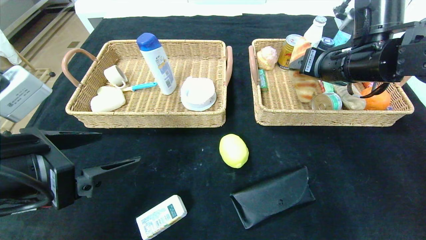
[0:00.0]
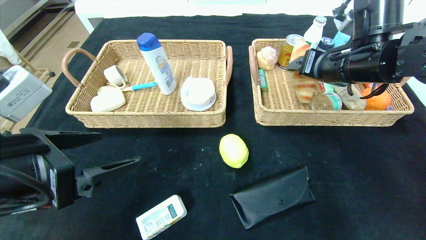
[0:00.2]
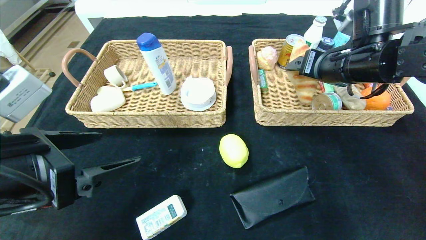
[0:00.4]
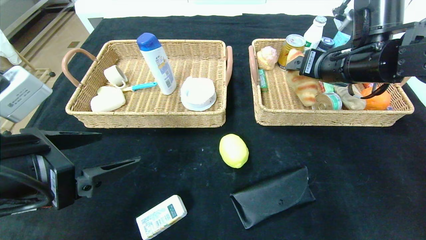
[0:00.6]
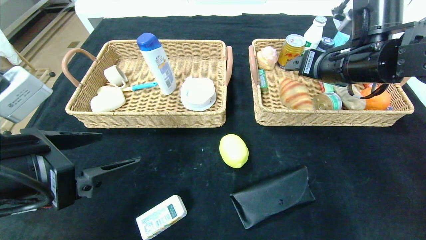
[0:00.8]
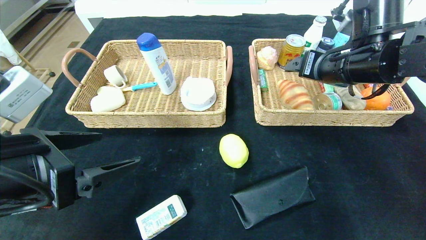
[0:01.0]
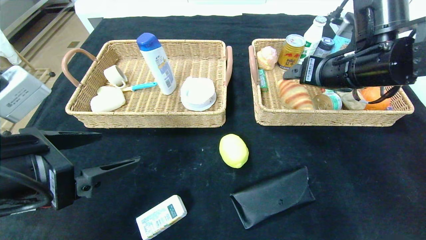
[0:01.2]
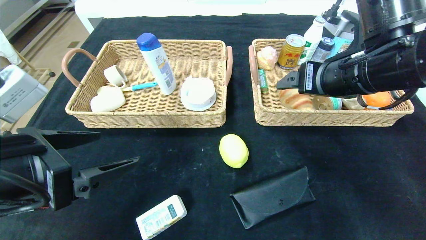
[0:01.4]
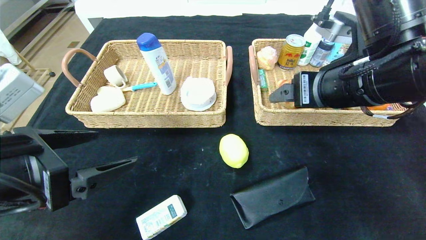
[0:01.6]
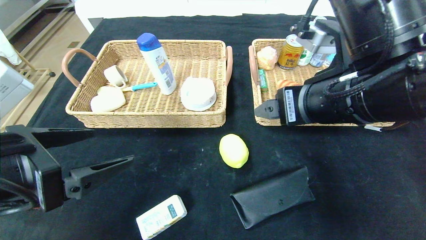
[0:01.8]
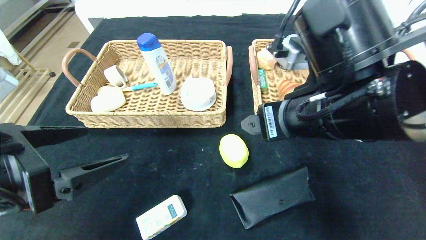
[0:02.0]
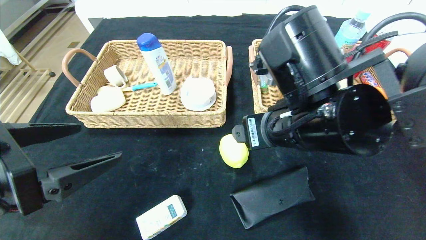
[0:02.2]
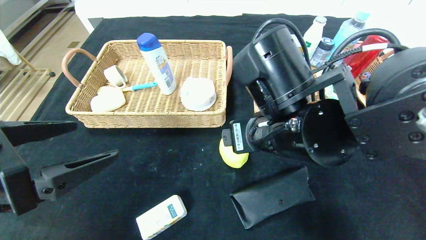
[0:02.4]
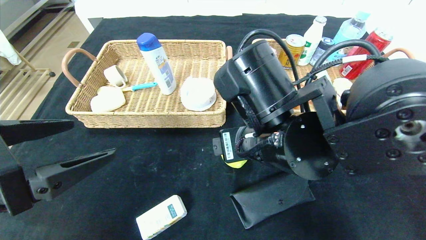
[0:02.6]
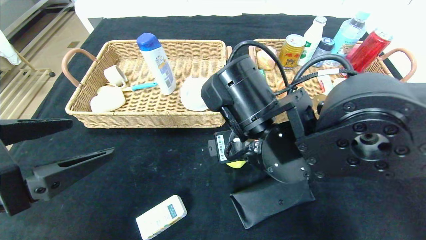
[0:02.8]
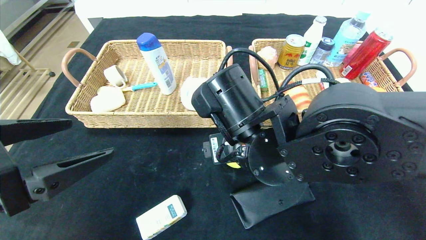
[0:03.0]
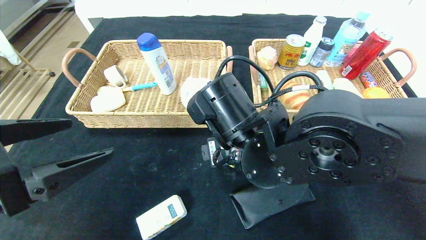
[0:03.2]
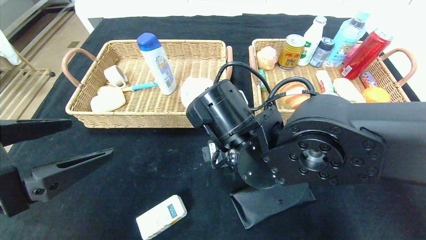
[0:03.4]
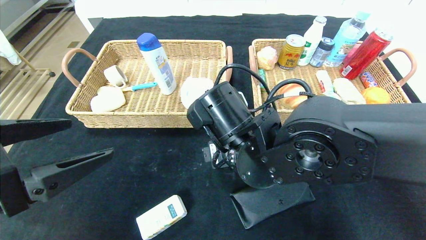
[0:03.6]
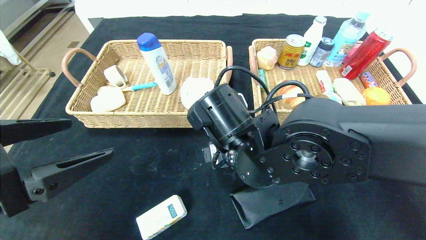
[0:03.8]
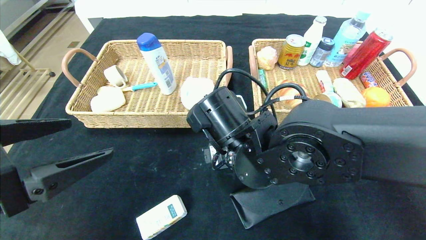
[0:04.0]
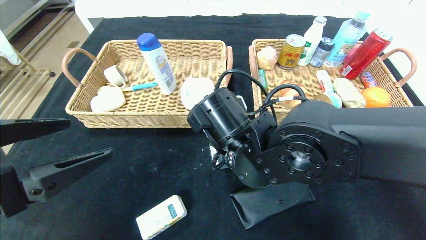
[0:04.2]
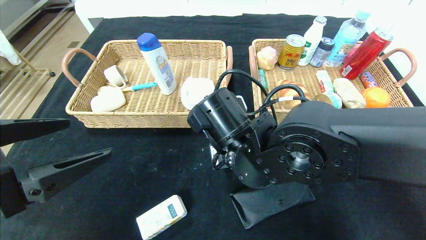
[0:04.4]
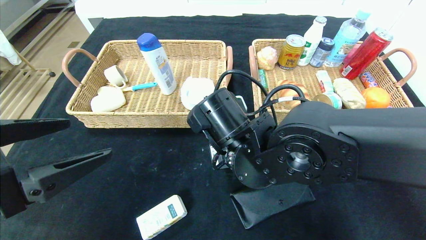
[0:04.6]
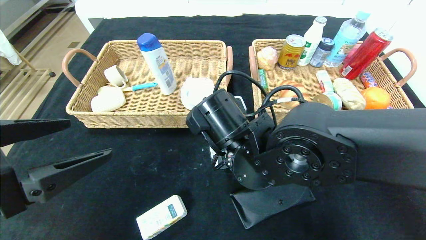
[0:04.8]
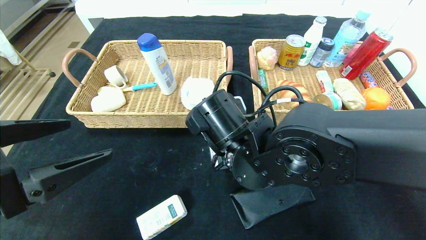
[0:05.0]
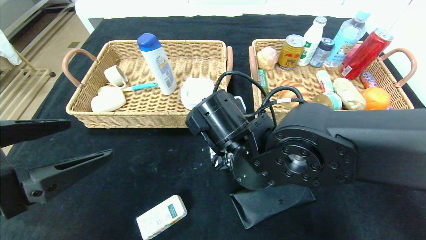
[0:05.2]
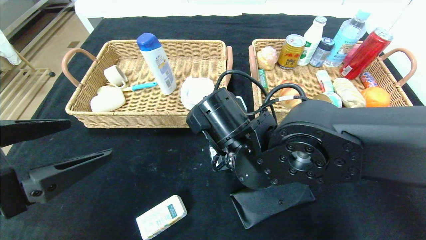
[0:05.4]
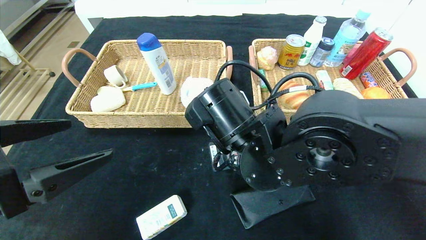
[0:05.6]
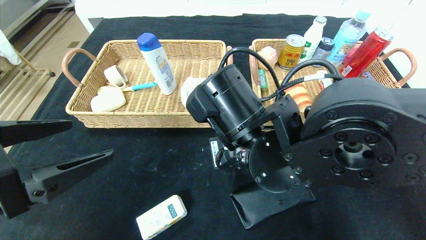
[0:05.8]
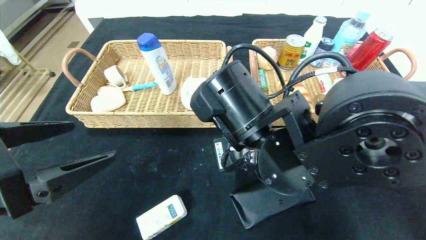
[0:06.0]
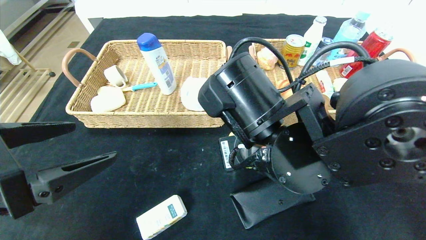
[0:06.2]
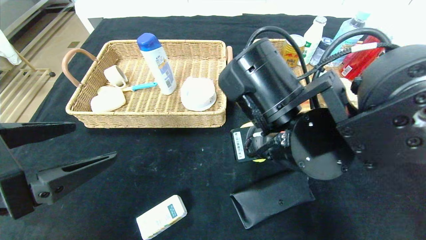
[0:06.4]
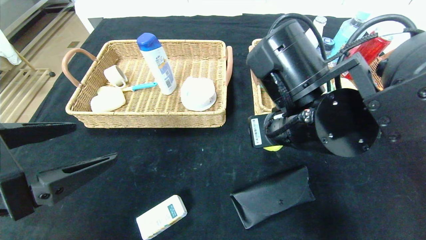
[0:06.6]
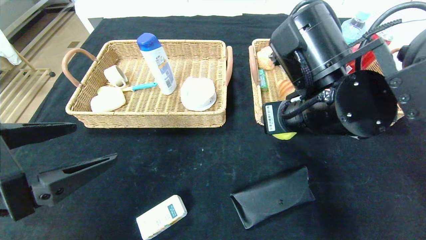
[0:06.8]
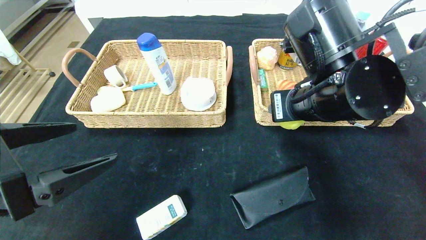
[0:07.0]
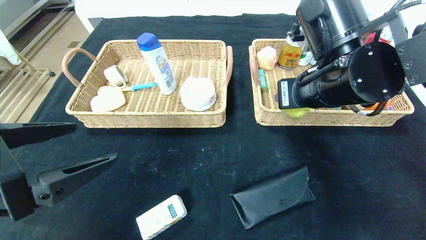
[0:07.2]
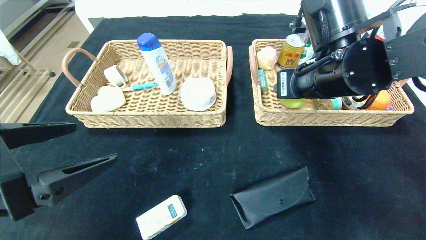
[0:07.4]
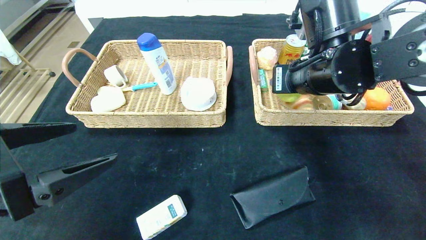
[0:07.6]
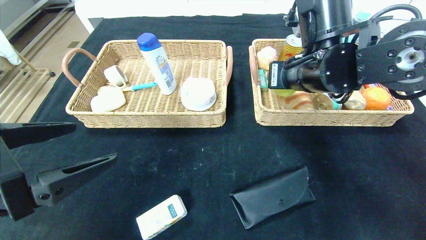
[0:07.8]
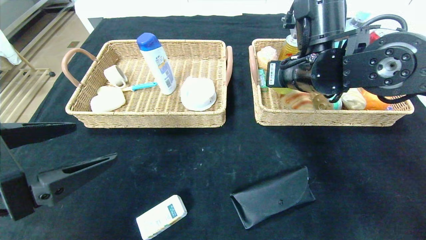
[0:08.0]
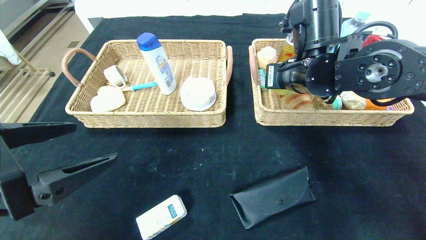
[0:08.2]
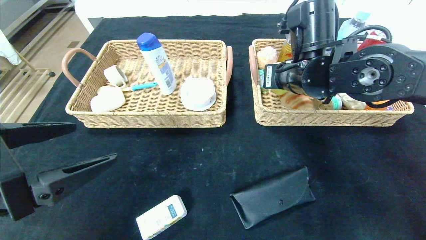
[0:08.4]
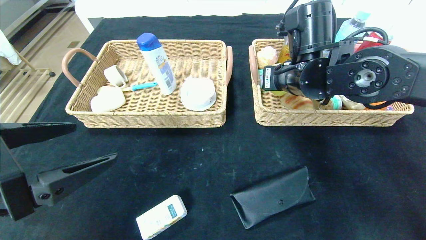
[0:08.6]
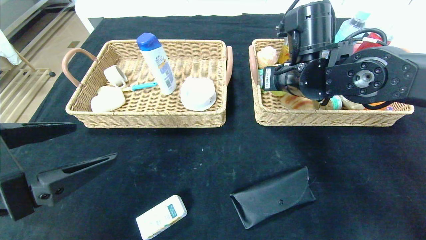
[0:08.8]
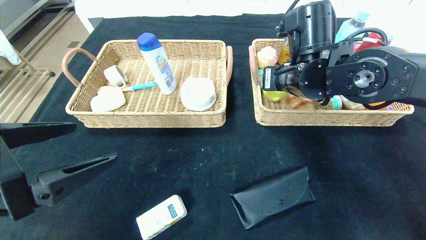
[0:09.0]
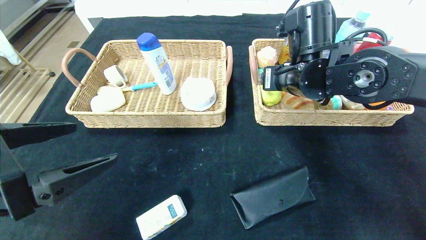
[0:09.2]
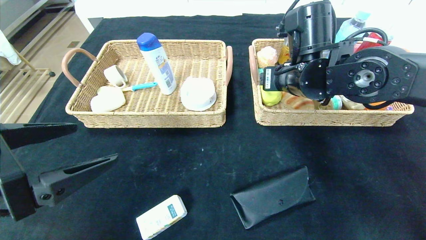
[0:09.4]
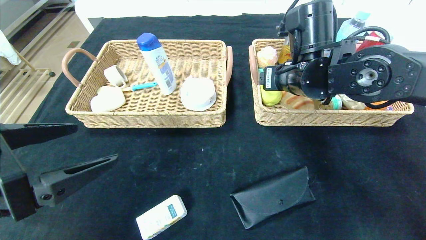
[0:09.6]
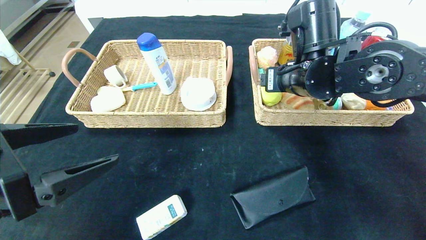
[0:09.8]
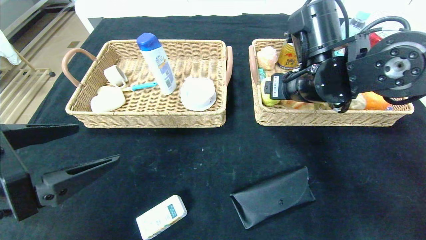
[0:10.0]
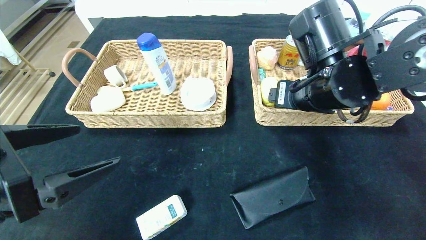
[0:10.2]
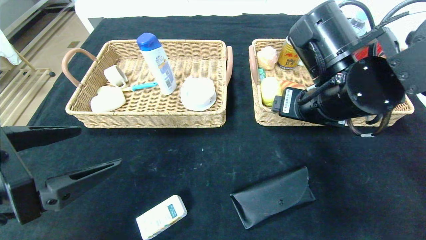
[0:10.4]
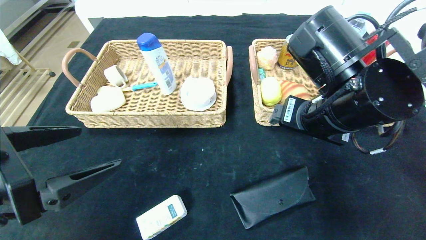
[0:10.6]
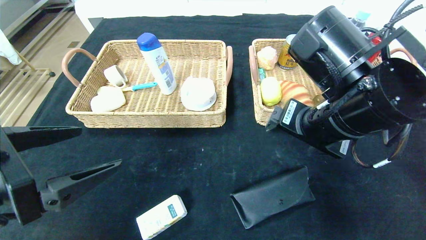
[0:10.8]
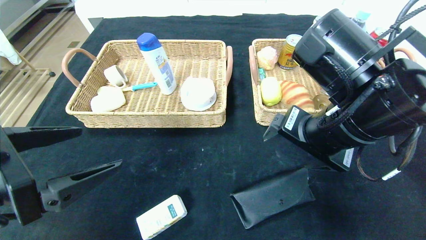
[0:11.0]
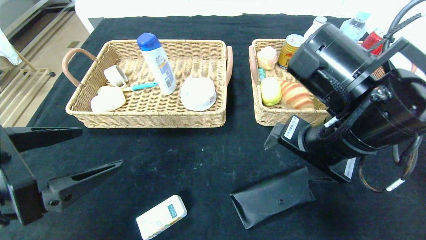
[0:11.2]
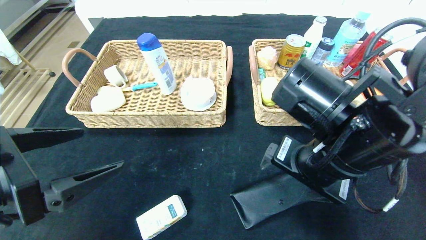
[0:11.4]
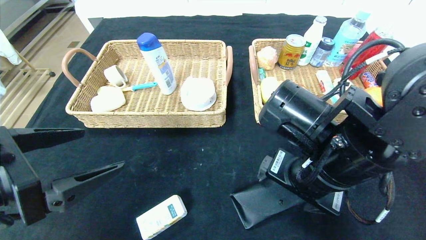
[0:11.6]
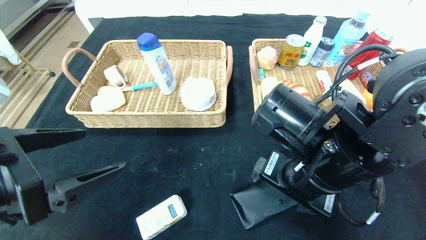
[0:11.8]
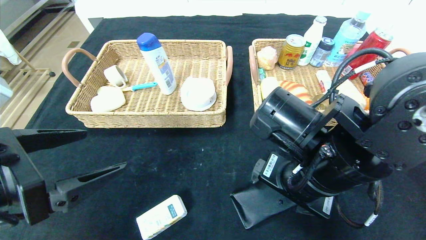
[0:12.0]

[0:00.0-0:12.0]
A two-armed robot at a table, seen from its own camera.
Step, 0:00.0 to 0:02.0: Pick up the croissant and put it in the right basket.
Step, 0:02.2 to 0:10.8: Pick up the lemon and put it in the right basket.
0:00.0 to 0:01.6: The right gripper moves backward and to the left, approximately 10 cm, and opens up.
0:01.6 to 0:03.0: The right gripper moves to the left and downward, approximately 15 cm.
0:03.0 to 0:04.4: The right gripper closes its fingers.
0:04.4 to 0:06.0: The right gripper shifts by roughly 5 cm.
0:06.0 to 0:07.6: The right gripper is displaced to the right, forward and upward by roughly 15 cm.
0:07.6 to 0:09.0: There are only small adjustments of the grippers.
0:09.0 to 0:10.4: The right gripper is displaced backward by about 10 cm, and opens its fingers.
0:10.4 to 0:12.0: The right gripper heads downward and backward, covering roughly 10 cm.

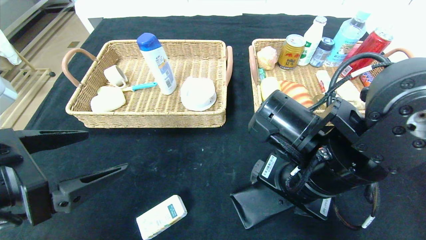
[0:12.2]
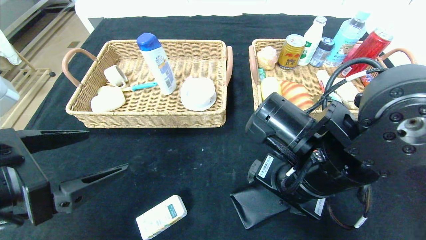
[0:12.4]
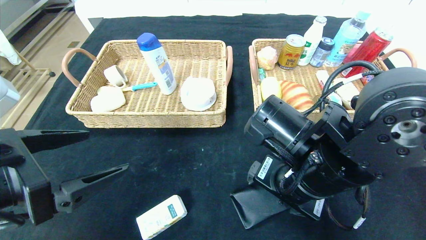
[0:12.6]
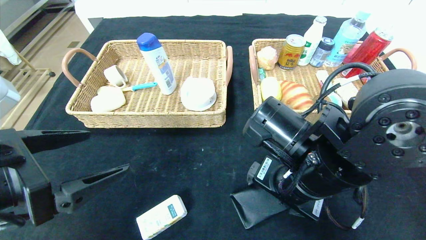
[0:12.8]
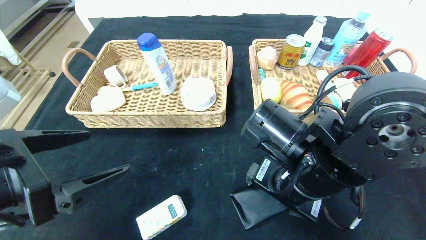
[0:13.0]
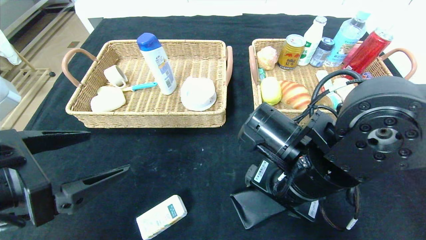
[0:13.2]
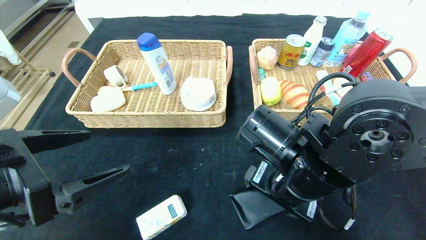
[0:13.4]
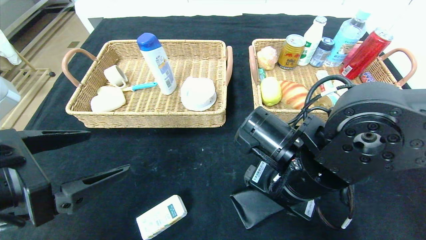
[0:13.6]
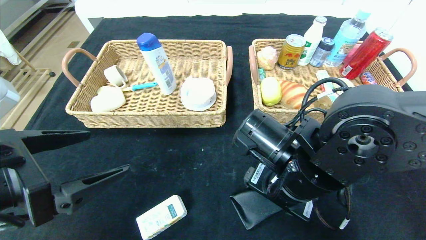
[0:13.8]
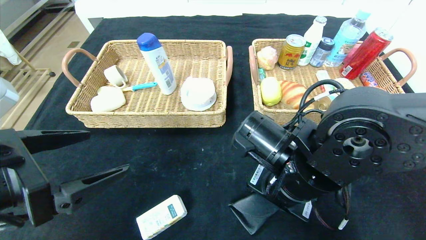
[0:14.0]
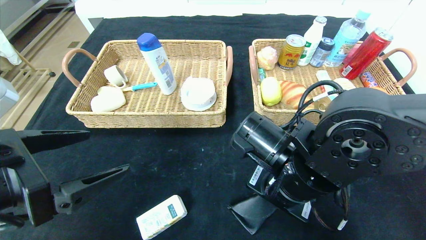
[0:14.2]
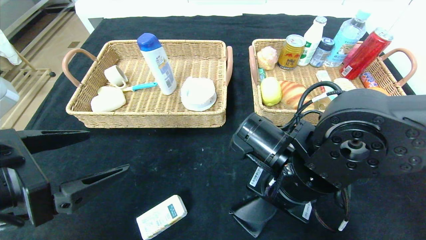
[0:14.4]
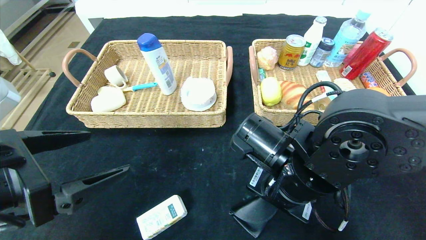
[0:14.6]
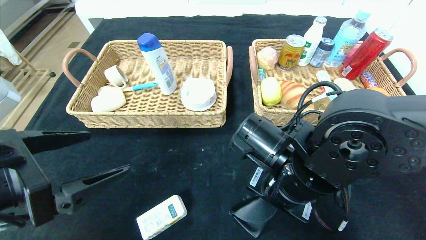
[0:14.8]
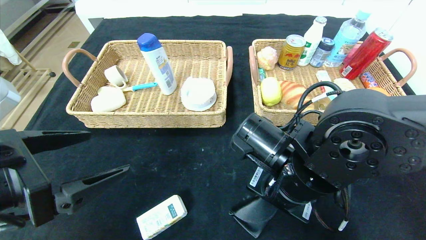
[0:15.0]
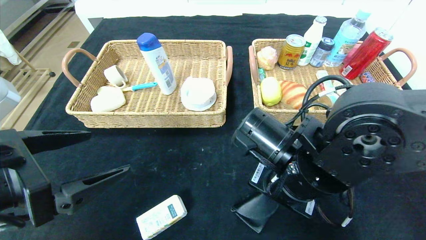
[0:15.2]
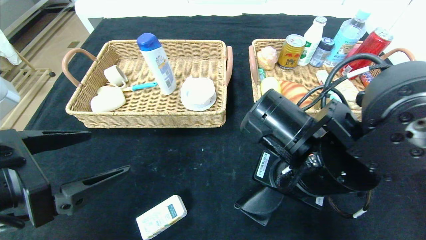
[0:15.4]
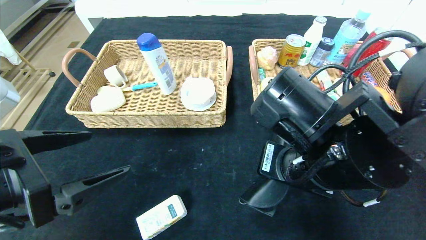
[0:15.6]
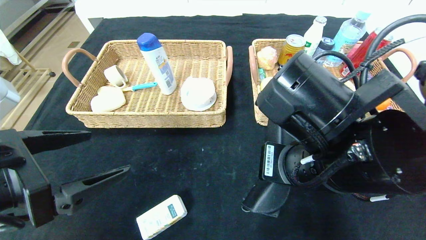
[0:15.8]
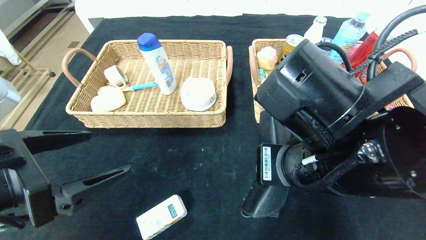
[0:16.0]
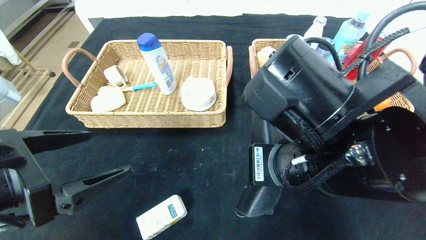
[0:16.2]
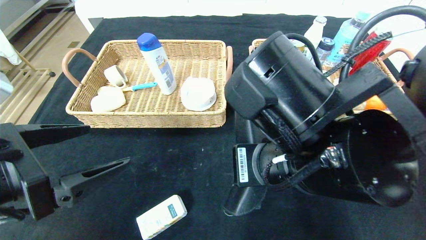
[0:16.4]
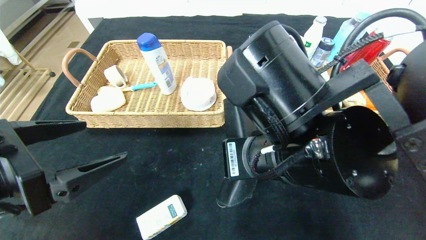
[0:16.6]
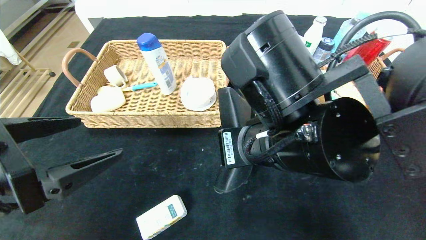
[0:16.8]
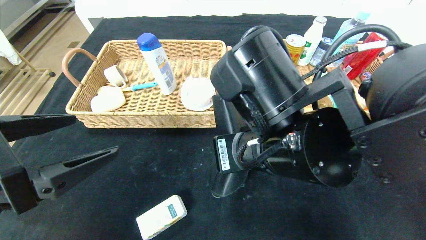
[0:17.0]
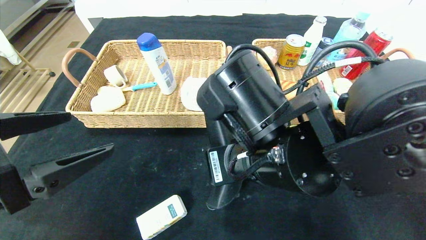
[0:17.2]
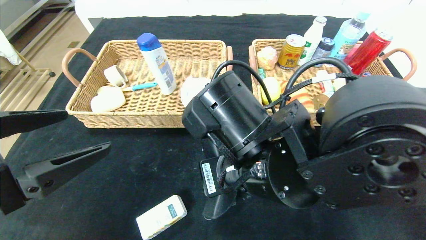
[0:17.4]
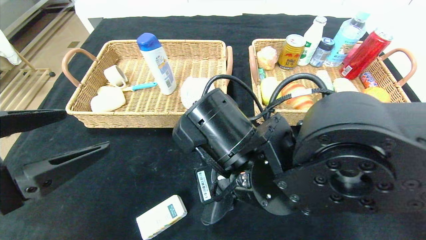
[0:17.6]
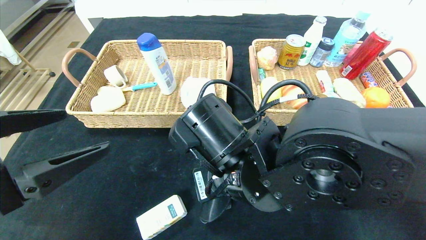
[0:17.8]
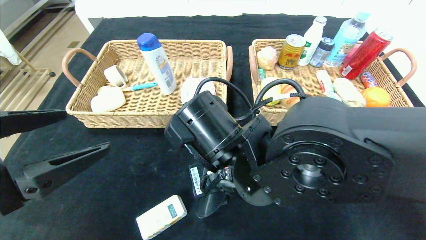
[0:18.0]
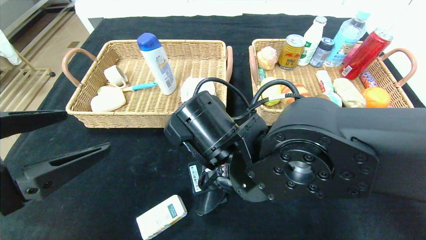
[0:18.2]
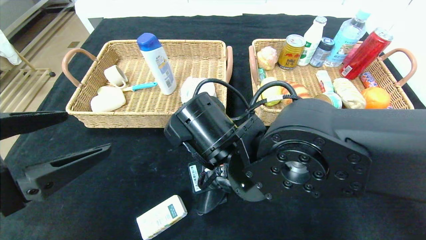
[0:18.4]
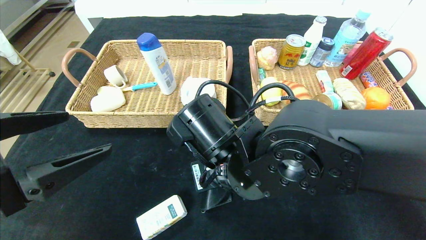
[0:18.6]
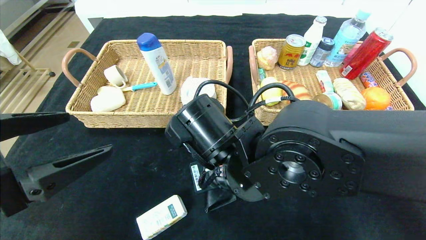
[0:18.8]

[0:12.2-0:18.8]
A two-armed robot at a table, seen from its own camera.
0:12.2 to 0:13.8: There are only small adjustments of the grippers.
0:13.8 to 0:15.4: The right gripper closes up.
0:15.4 to 0:17.2: The right gripper shifts roughly 5 cm to the left.
0:17.2 to 0:18.8: The right gripper shifts by about 5 cm, and opens.
